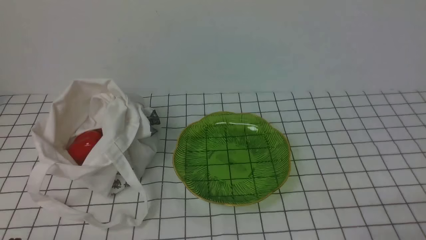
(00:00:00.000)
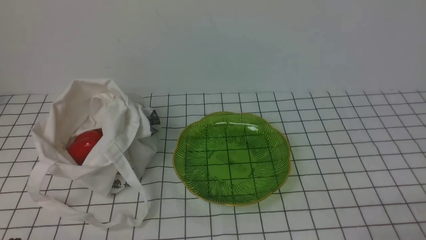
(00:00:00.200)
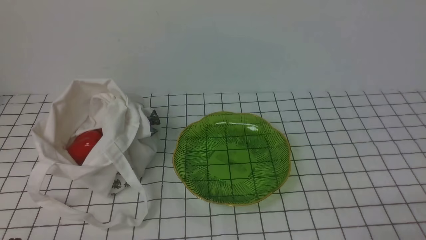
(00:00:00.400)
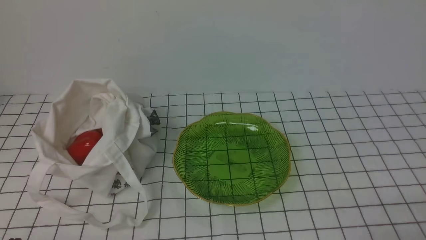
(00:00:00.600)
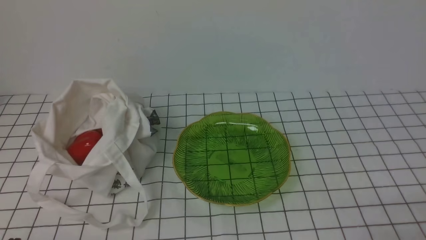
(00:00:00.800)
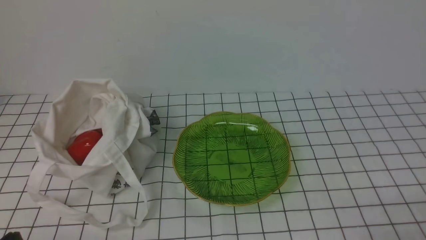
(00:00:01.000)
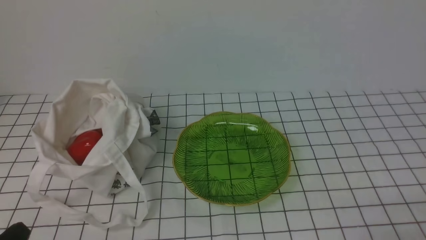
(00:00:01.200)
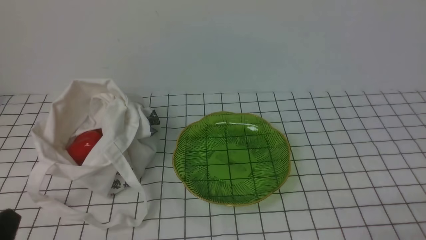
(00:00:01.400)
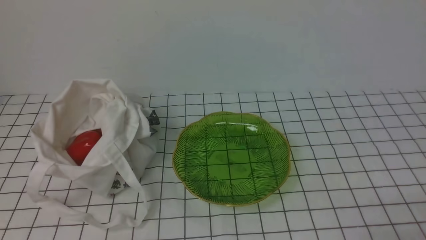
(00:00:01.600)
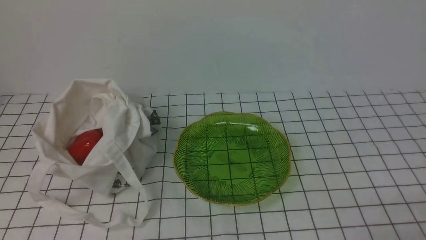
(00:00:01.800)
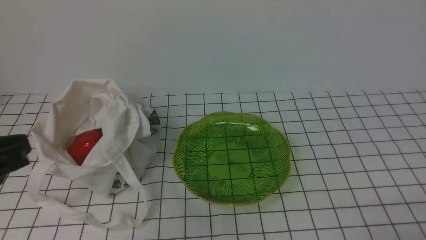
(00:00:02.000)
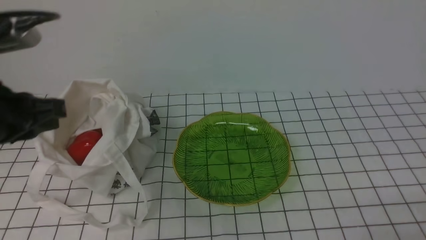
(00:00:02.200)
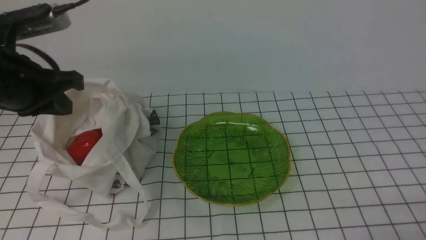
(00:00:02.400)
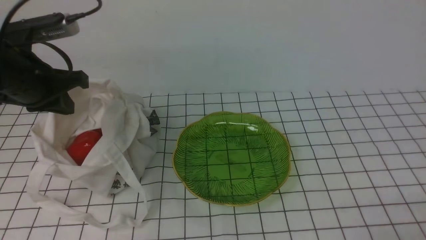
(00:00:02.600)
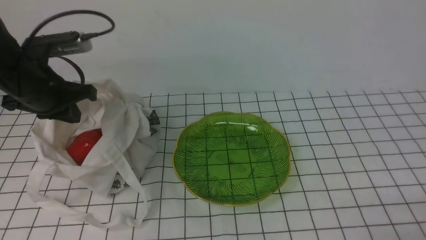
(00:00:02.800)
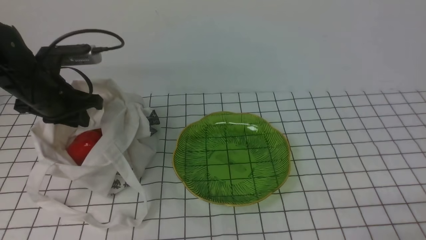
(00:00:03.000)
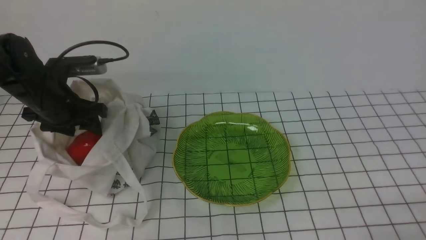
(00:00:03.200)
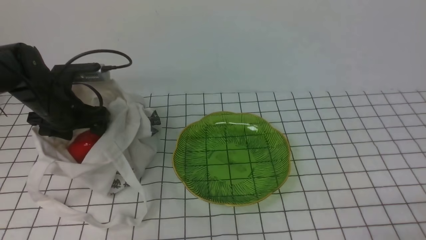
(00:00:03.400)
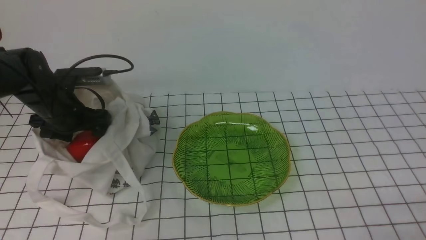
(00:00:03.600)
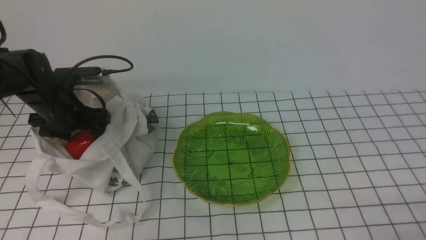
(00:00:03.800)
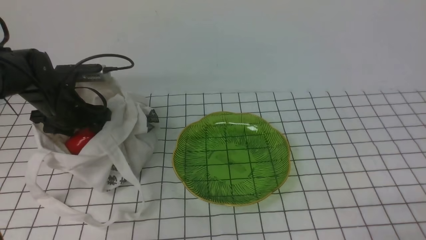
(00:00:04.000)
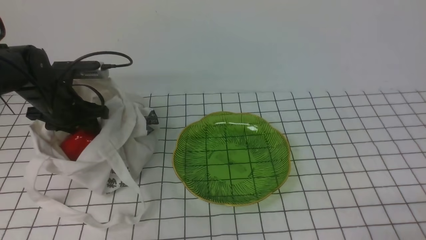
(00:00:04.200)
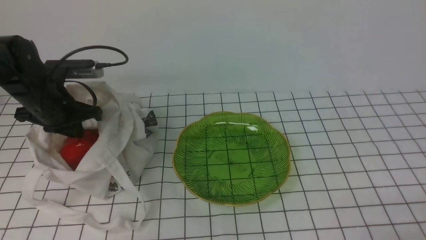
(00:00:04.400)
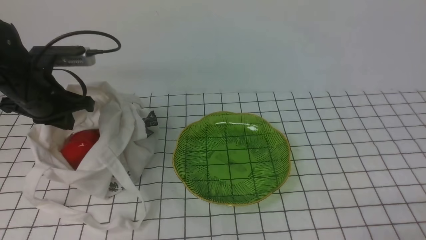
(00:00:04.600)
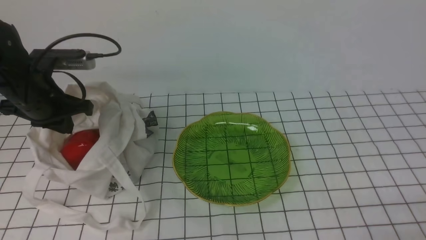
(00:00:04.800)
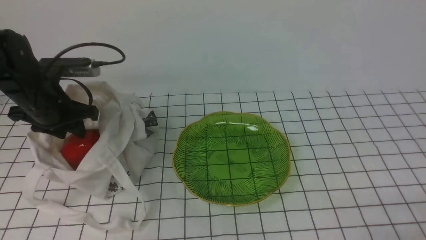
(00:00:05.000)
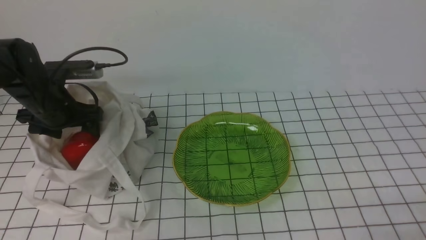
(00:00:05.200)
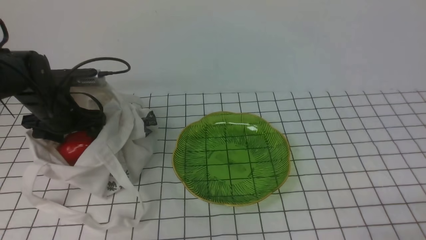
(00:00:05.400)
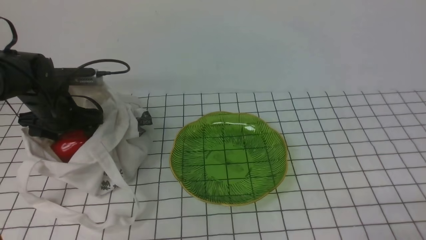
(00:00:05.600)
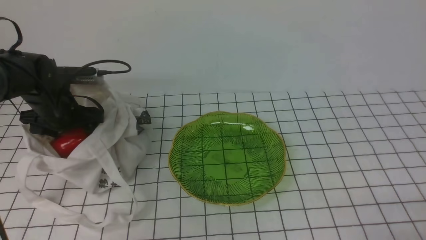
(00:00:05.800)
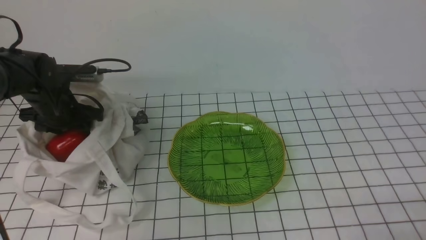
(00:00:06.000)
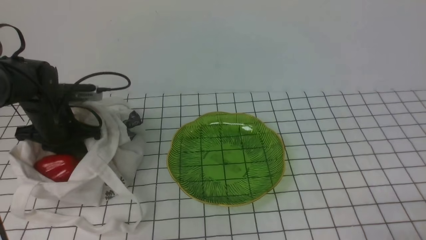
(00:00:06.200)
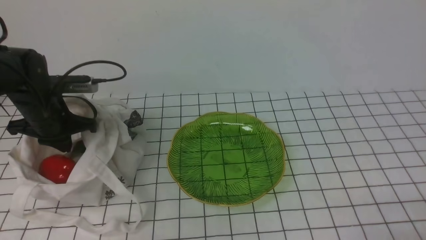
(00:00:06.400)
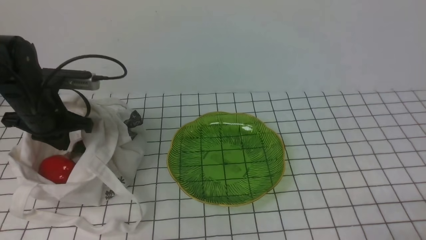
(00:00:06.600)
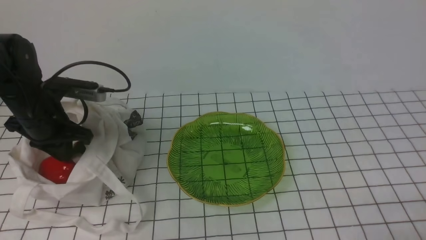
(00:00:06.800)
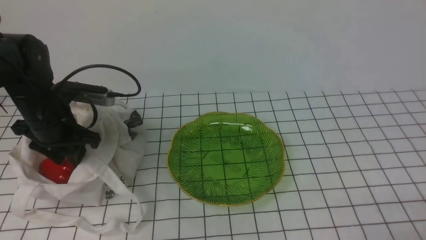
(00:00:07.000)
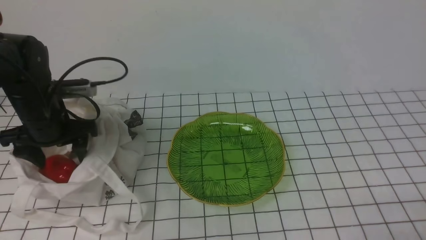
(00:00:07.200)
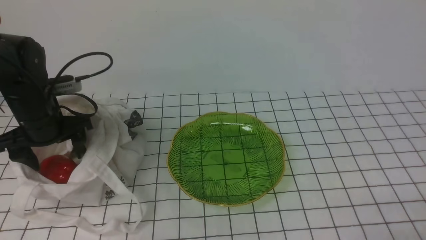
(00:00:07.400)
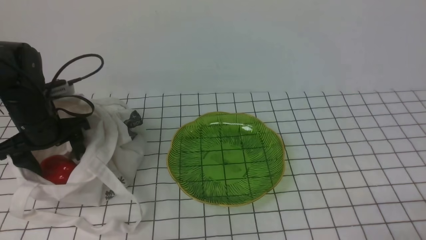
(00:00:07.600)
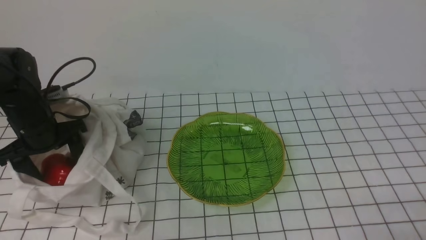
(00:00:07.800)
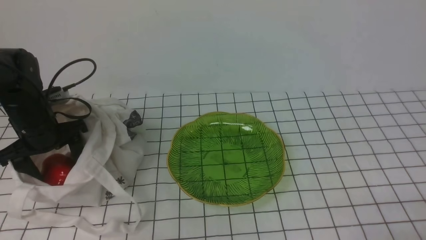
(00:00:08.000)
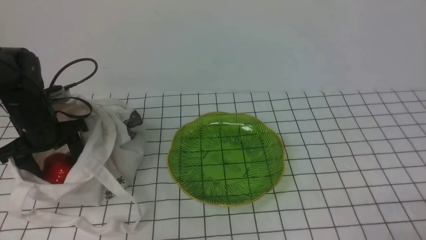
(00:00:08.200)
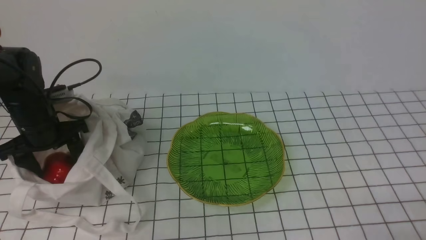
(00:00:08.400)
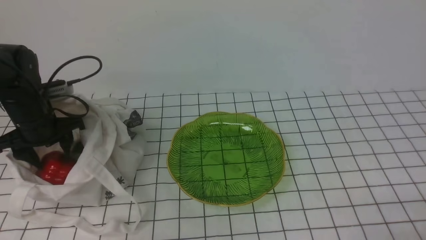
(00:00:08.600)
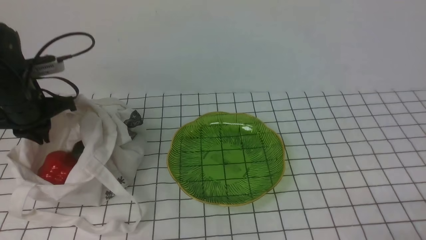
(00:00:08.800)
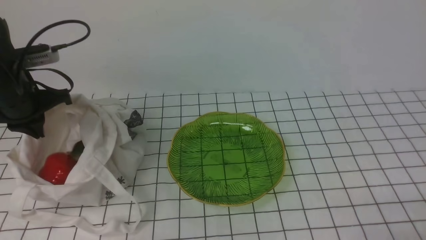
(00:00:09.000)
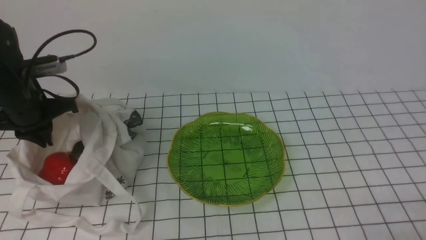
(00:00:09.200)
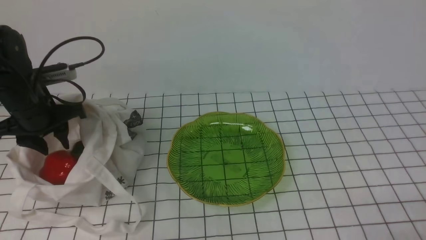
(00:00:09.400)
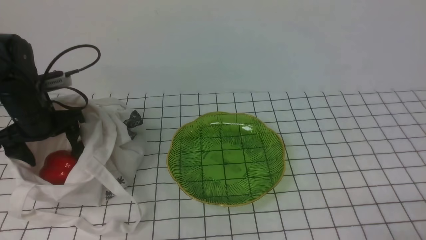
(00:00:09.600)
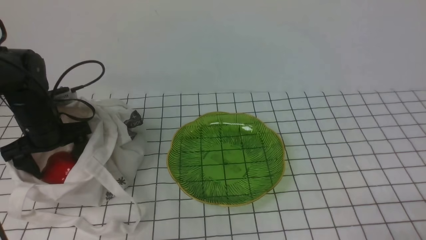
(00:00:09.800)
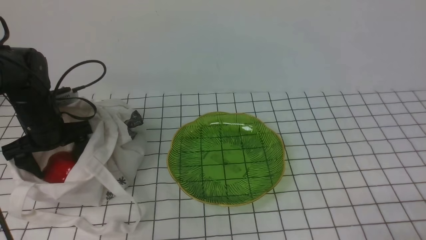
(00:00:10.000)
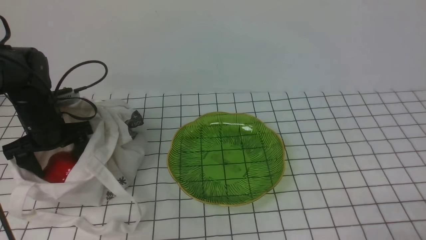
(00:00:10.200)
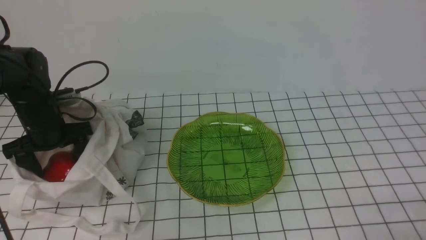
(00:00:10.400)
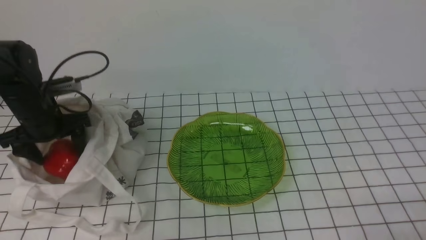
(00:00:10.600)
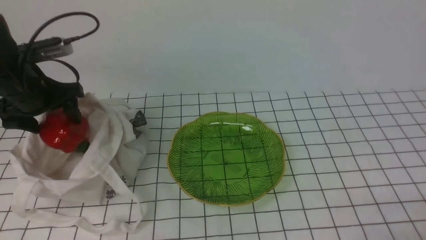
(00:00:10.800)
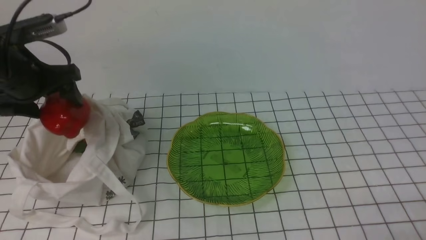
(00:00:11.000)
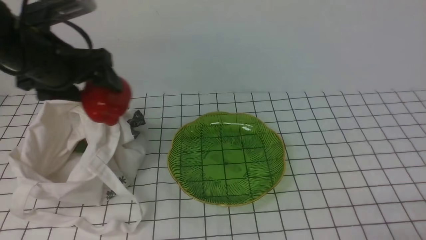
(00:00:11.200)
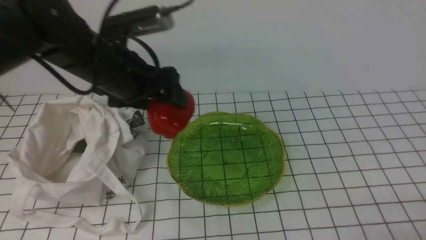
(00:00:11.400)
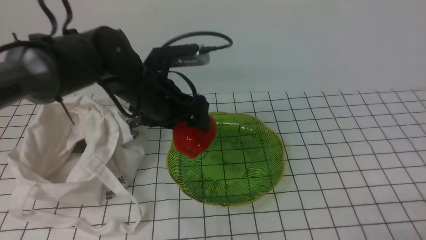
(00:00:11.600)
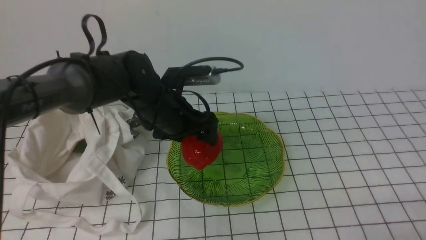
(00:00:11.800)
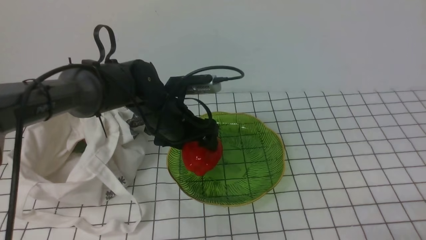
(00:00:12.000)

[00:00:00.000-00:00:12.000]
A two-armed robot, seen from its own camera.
Task of the whole recording: take vegetables from bag on white checkered tablecloth place on plate.
Step, 00:00:00.000 to 00:00:10.200: Grasp the bell pepper with left gripper.
00:00:01.600 to 00:00:03.000: The left gripper shifts approximately 30 cm forward.
00:00:03.000 to 00:00:04.400: The left gripper opens, then closes again.
00:00:04.400 to 00:00:06.000: The left gripper moves downward, about 5 cm, and opens its fingers.
00:00:06.000 to 00:00:07.600: The left gripper closes and opens again.
00:00:07.600 to 00:00:09.000: The left gripper changes place by approximately 5 cm, and closes its fingers.
00:00:09.000 to 00:00:10.400: The left gripper travels downward by approximately 5 cm, and opens up.
00:00:10.400 to 00:00:12.000: The left gripper shifts approximately 20 cm to the right.

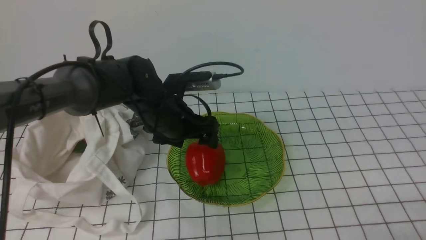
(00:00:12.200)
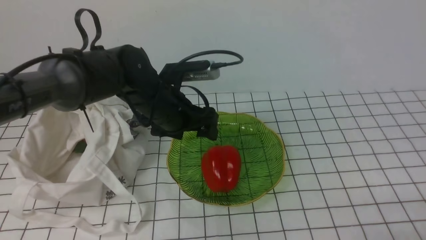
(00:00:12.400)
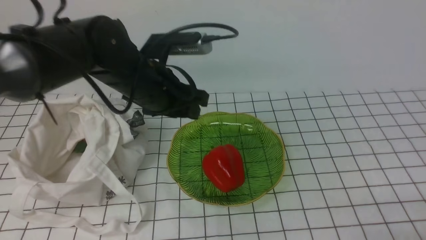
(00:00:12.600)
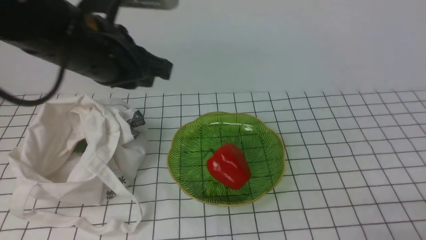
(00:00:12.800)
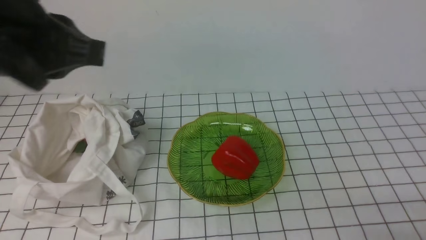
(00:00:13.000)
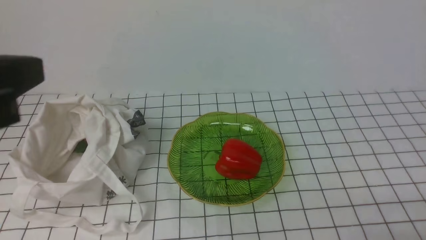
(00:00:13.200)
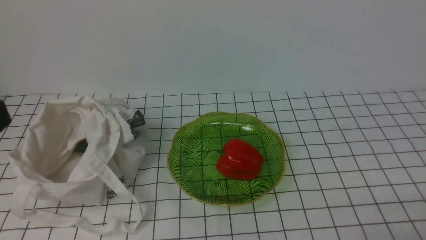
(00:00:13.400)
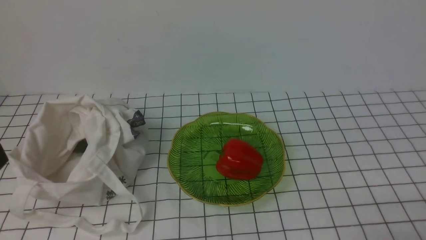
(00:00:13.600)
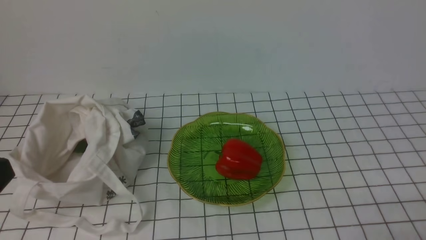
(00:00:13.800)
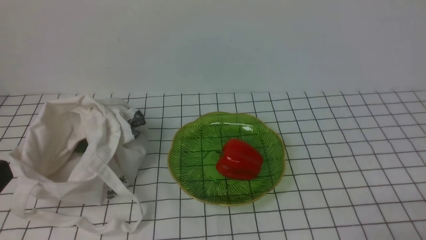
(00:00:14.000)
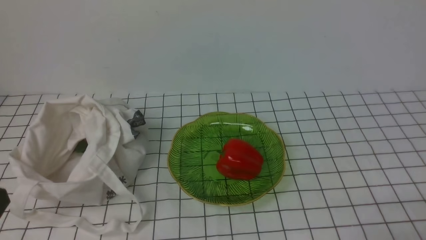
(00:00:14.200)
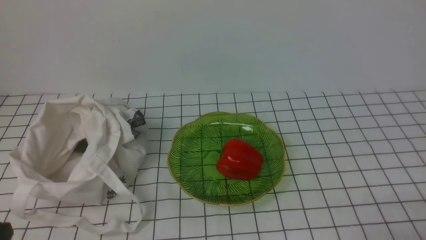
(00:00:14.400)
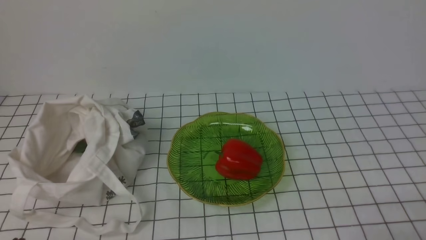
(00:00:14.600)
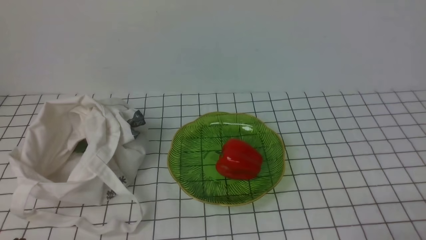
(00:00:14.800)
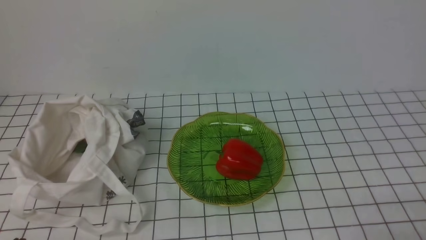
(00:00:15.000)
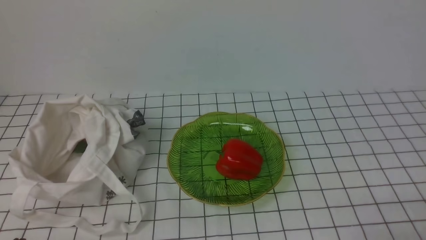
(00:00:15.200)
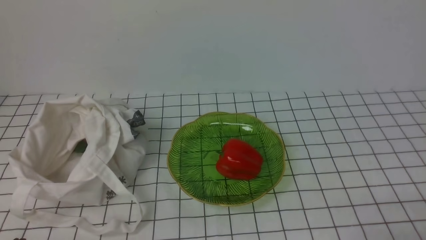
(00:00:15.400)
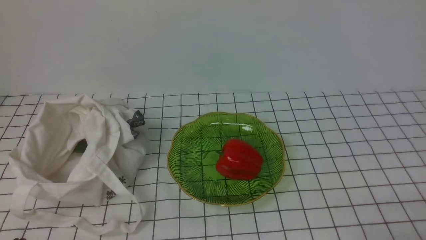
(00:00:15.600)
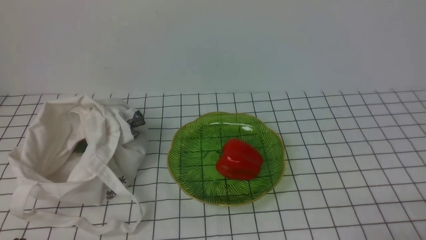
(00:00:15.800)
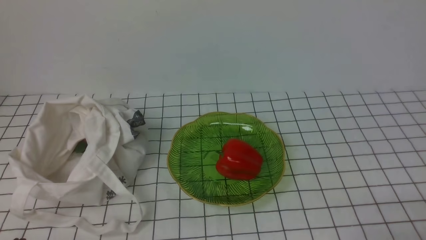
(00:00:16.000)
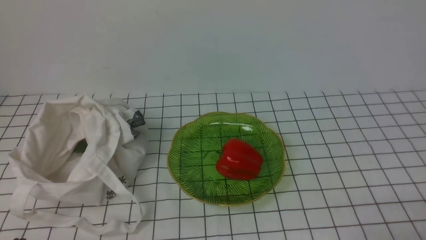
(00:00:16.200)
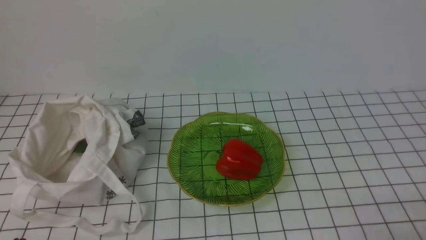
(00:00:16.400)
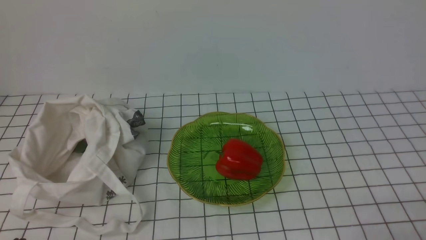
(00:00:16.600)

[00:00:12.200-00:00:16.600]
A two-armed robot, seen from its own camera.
Task of the whole recording: take vegetables from bag on white checkered tablecloth place on plate.
00:00:12.200 to 00:00:13.600: The left gripper moves backward, to the left and upward, roughly 35 cm, and closes.
00:00:15.200 to 00:00:16.600: The two grippers keep their place.
